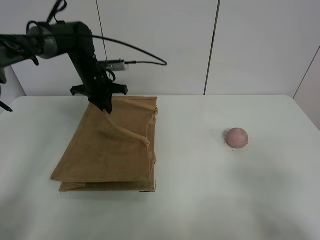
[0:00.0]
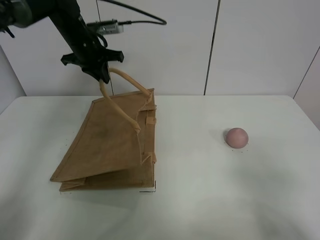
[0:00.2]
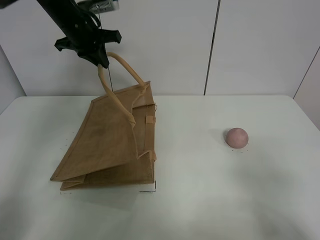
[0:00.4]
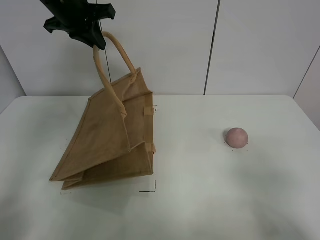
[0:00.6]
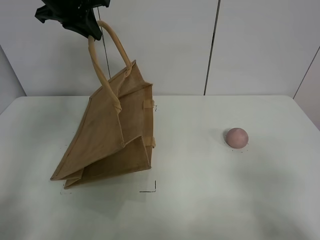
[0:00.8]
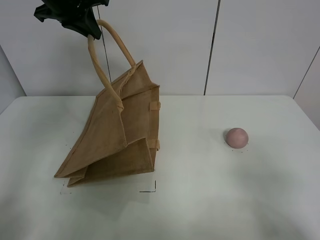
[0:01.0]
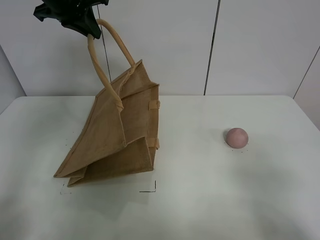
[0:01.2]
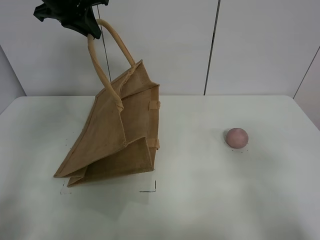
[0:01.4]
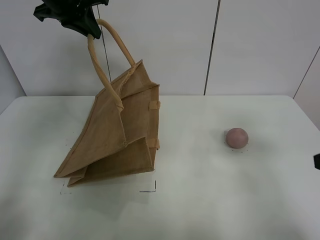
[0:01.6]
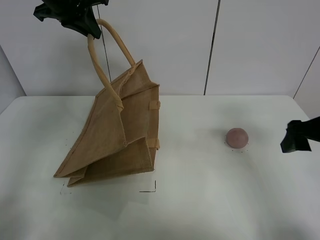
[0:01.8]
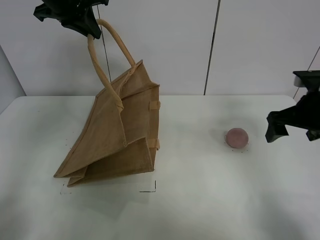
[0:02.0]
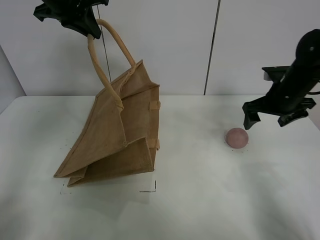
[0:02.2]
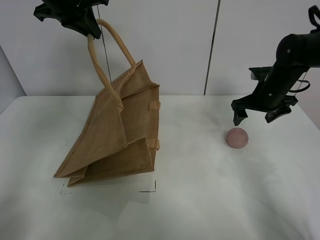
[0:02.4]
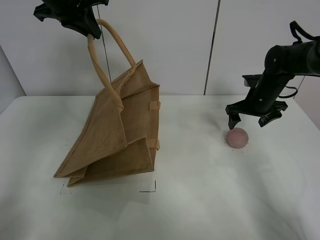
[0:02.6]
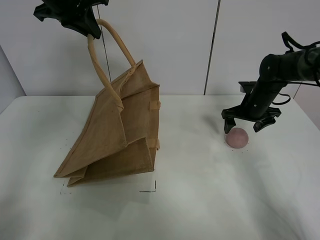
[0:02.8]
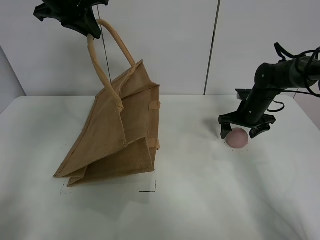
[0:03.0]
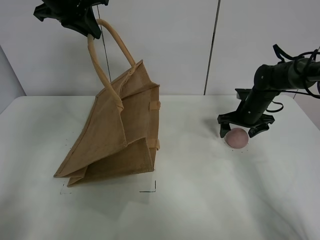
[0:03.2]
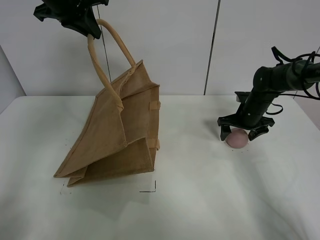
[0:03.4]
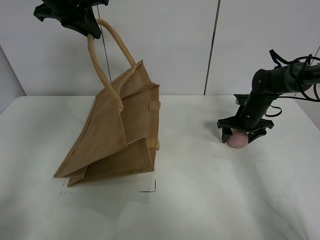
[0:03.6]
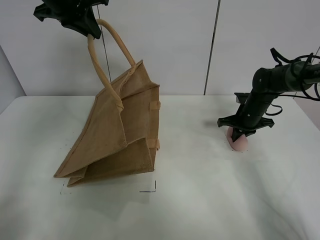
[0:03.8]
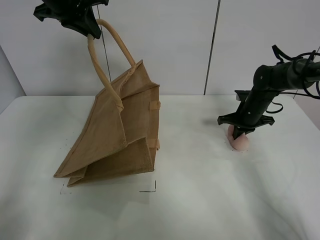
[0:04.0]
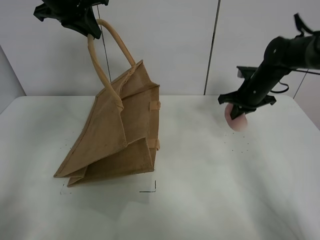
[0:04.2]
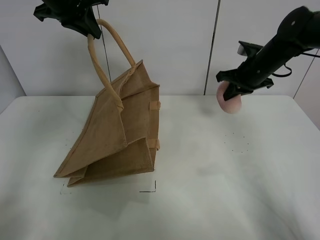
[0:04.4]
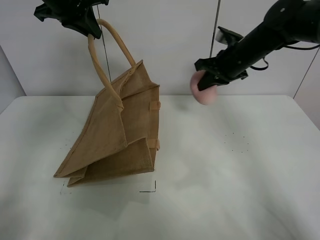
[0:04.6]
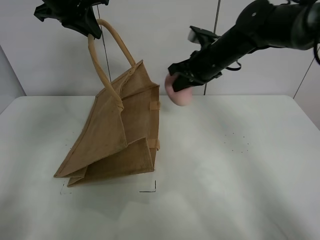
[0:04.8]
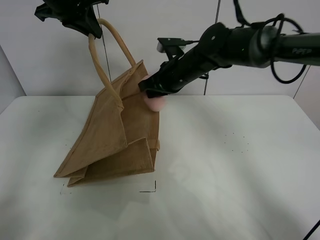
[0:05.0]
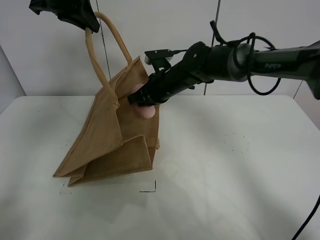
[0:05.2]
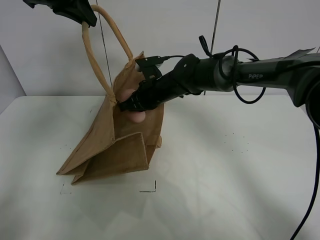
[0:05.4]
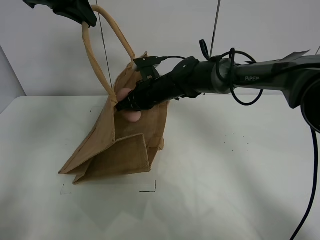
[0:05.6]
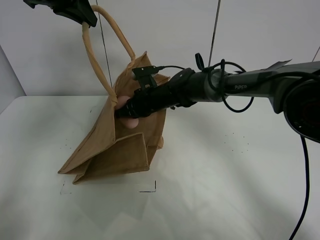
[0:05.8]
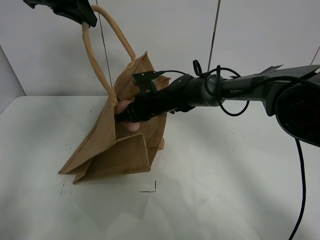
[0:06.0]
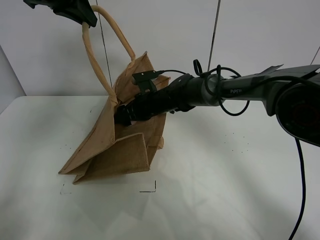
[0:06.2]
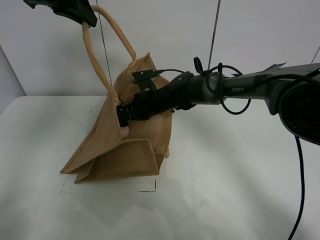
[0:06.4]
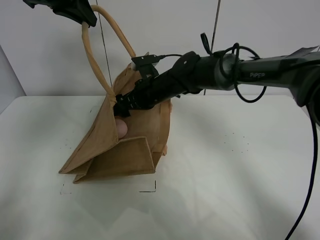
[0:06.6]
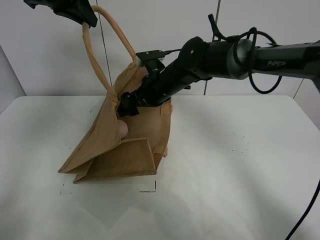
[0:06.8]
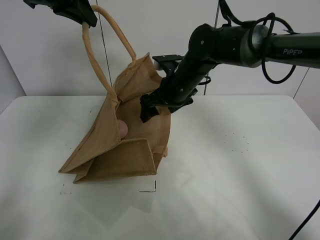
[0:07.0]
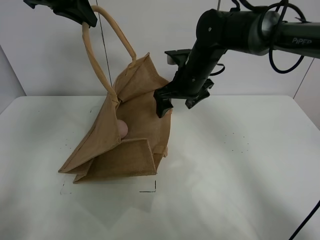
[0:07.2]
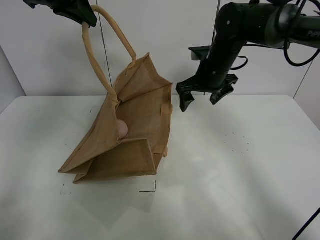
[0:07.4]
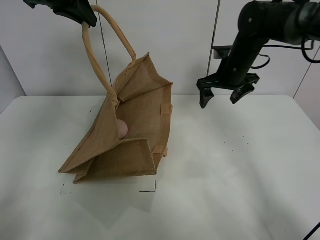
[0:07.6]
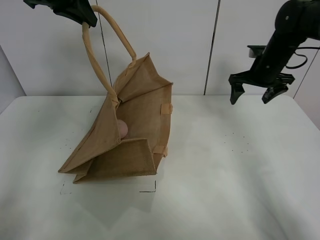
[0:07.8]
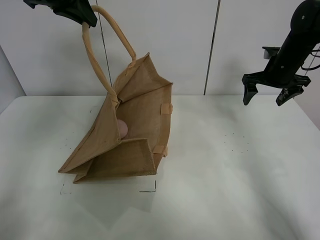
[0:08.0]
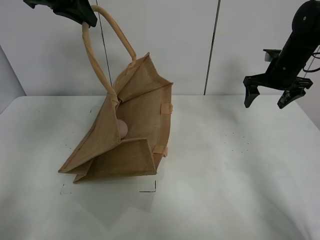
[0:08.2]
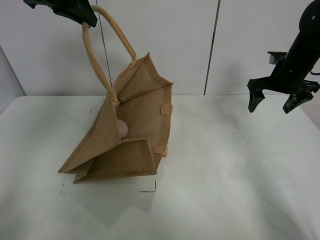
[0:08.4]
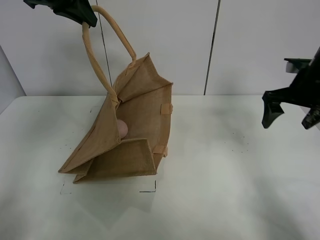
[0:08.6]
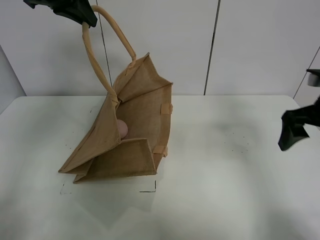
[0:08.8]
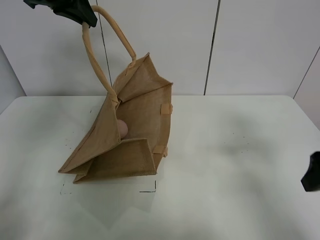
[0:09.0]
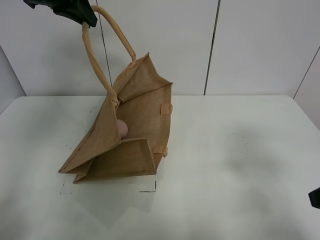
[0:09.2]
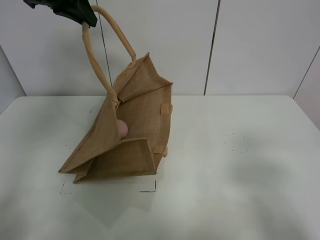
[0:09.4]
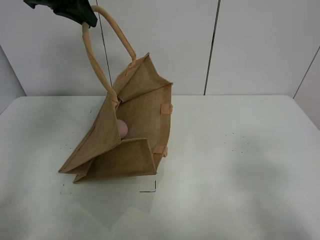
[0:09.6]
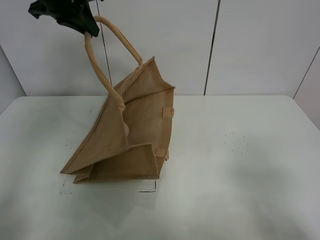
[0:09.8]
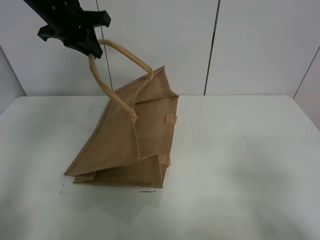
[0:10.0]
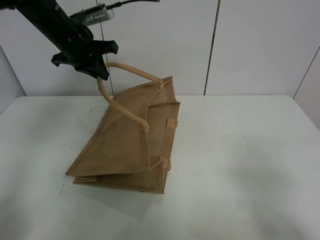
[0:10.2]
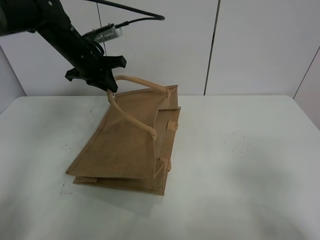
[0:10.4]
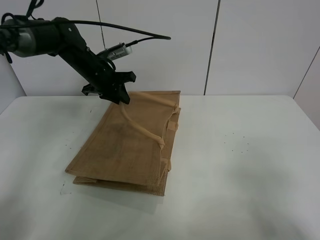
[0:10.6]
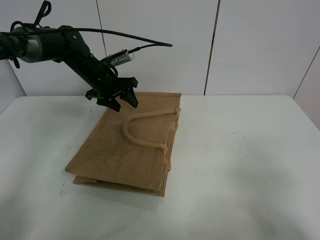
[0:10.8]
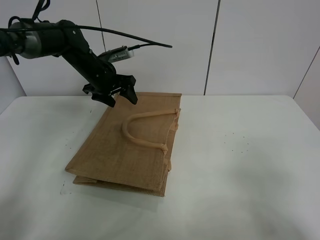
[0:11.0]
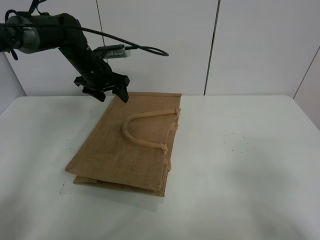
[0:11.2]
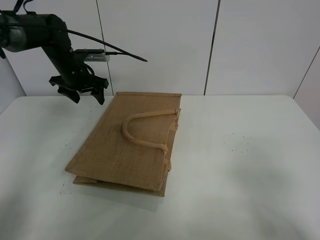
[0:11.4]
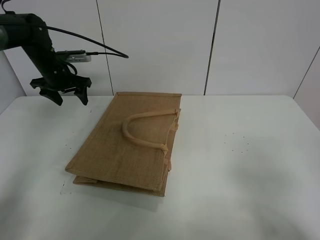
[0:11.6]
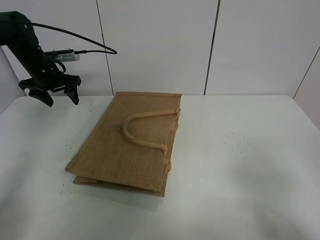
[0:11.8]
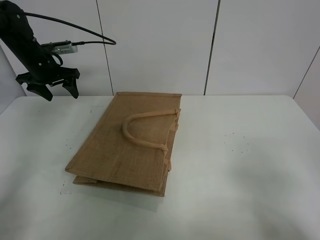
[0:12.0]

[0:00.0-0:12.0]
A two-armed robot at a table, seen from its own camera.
Task of the whole recording: open the brown linen bag and put the peach in the bag.
Step, 0:01.2 to 0:03.6: Grasp the peach with right gripper.
Step, 0:03.8 to 0:07.2: Place the peach in the handbag with right gripper.
Step, 0:07.4 to 0:11.2: Put down the handbag with left grippe.
0:00.0 to 0:01.6: The right gripper moves forward, roughly 15 cm. The left gripper is displaced upward by roughly 20 cm.
0:01.6 to 0:03.0: The right gripper shifts about 35 cm forward and downward.
0:03.0 to 0:04.4: The right gripper goes roughly 15 cm upward, and closes up.
0:04.4 to 0:06.0: The right gripper moves to the left and downward, roughly 25 cm.
0:06.0 to 0:07.6: The right gripper is displaced to the right and upward by some 20 cm, and opens its fingers.
0:07.6 to 0:09.0: The right gripper moves backward, some 30 cm.
0:09.0 to 0:10.4: The left gripper heads downward, covering roughly 15 cm; the right gripper goes approximately 15 cm backward.
0:10.4 to 0:12.0: The left gripper goes about 15 cm to the left, and opens up.

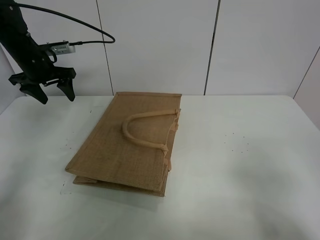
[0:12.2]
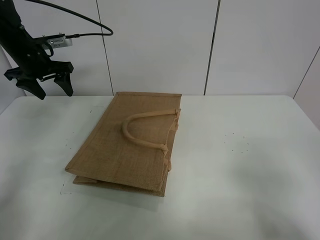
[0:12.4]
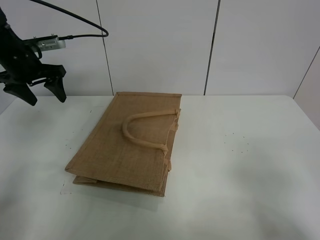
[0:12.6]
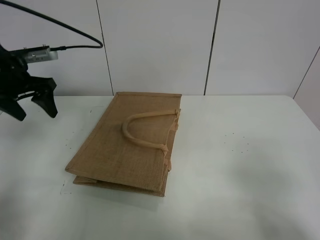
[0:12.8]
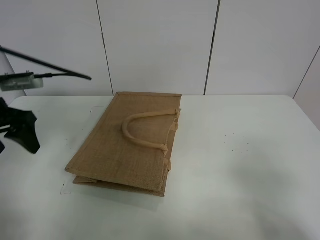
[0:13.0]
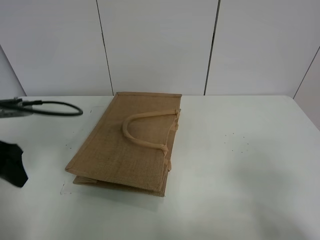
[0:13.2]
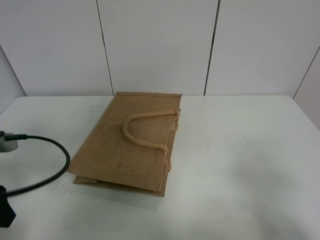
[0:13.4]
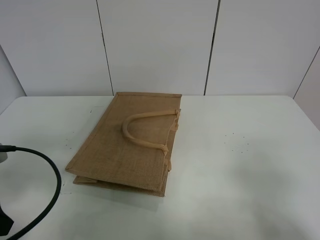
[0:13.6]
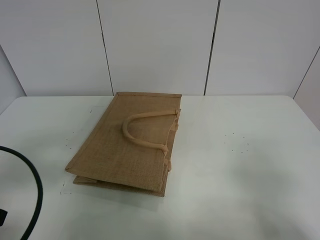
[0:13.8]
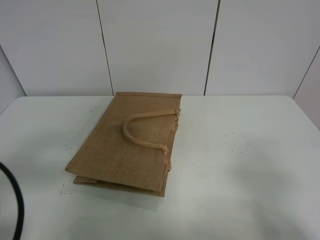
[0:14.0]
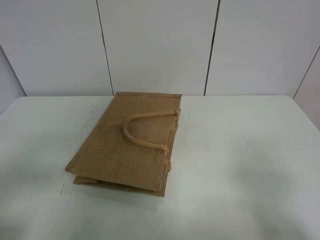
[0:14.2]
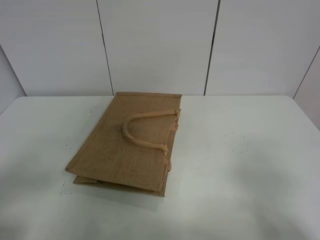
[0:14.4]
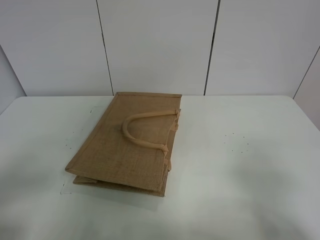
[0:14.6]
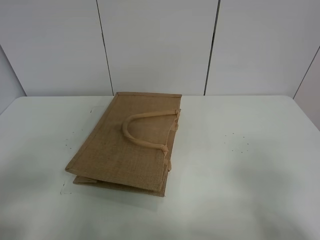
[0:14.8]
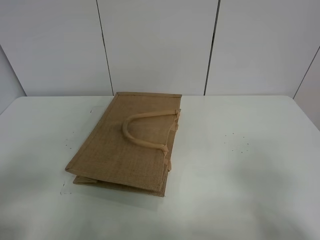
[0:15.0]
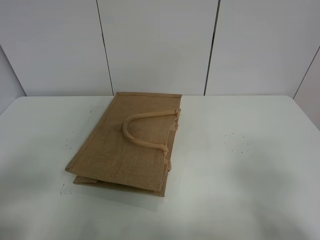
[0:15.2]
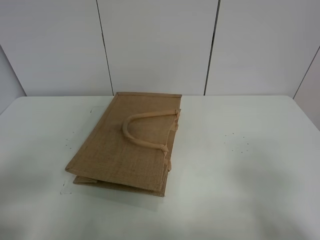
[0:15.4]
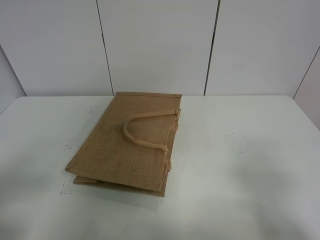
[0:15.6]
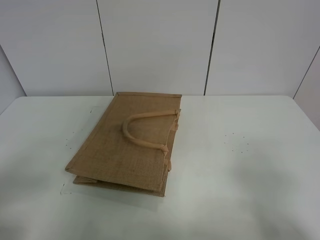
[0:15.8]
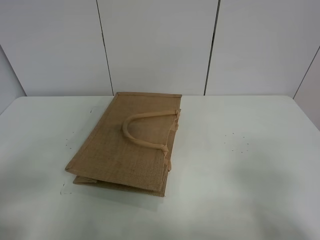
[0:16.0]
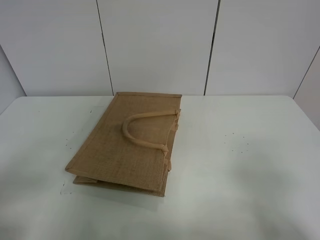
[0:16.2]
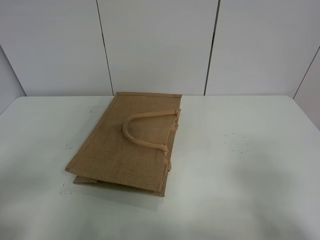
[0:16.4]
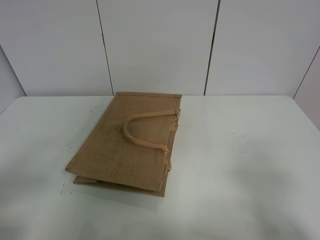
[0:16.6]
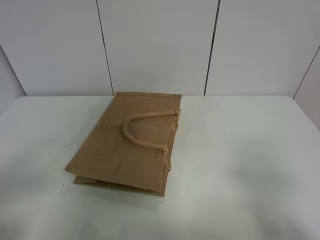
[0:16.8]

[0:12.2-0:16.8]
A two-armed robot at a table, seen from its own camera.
Task of the whole recording: open the brown linen bag and put the peach in the bag.
0:12.2 to 0:13.8: The left gripper moves backward, about 35 cm.
0:13.8 to 0:15.2: The left gripper heads backward, covering roughly 10 cm.
0:15.2 to 0:16.8: The two grippers keep their place.

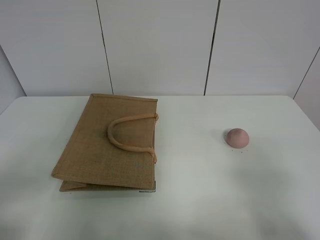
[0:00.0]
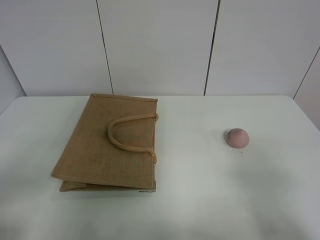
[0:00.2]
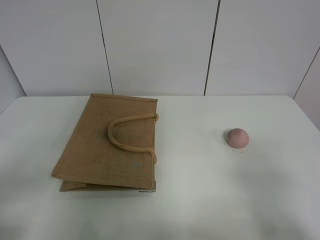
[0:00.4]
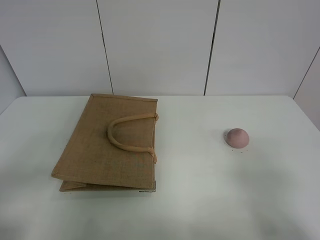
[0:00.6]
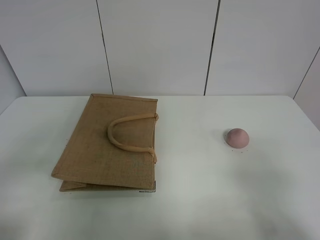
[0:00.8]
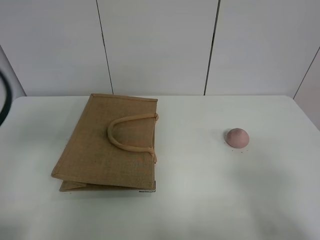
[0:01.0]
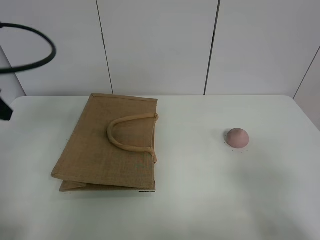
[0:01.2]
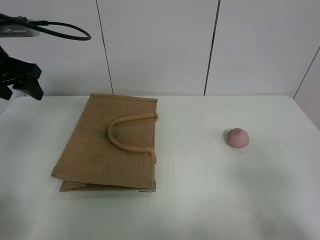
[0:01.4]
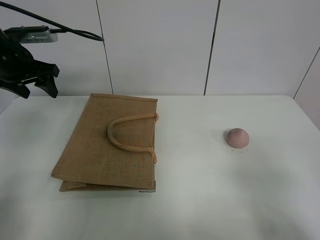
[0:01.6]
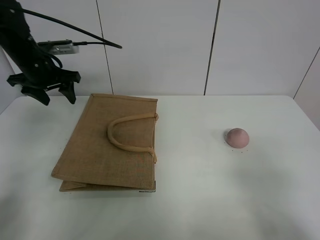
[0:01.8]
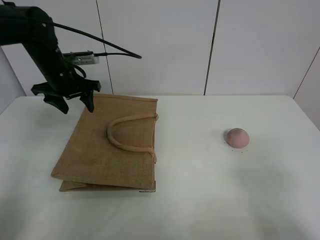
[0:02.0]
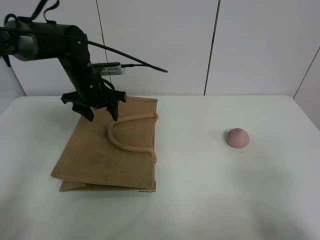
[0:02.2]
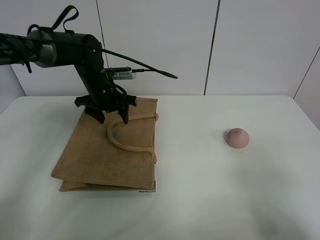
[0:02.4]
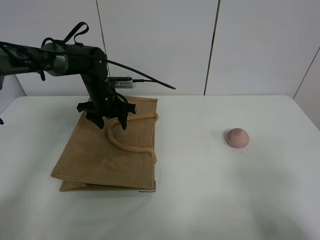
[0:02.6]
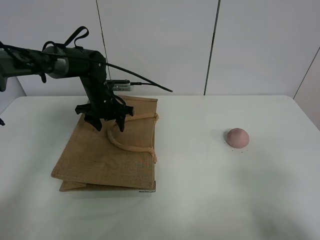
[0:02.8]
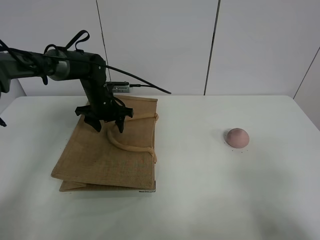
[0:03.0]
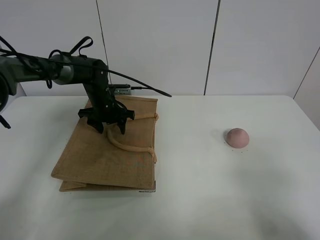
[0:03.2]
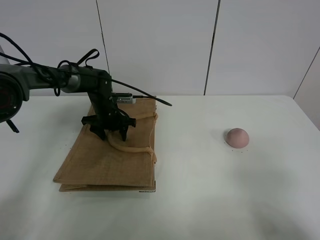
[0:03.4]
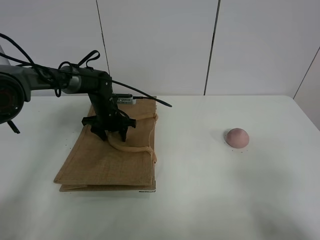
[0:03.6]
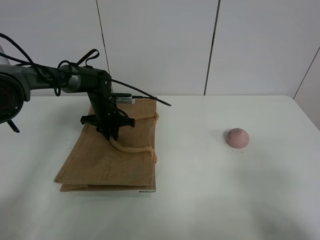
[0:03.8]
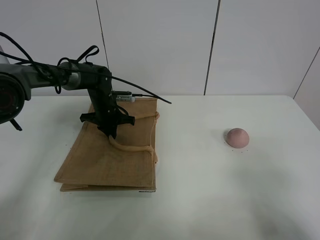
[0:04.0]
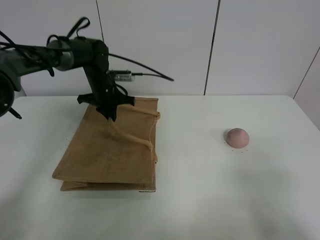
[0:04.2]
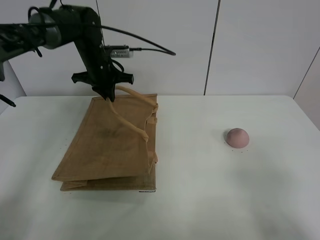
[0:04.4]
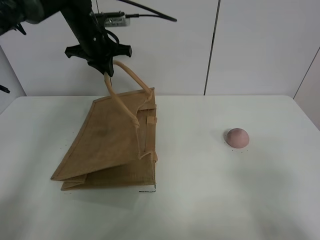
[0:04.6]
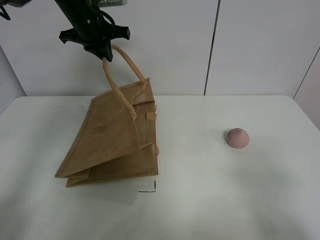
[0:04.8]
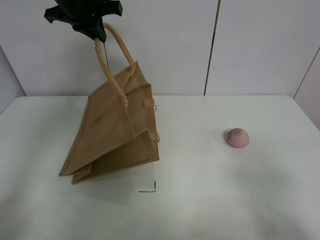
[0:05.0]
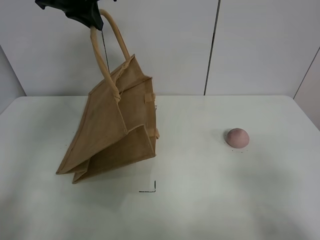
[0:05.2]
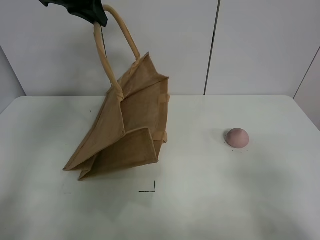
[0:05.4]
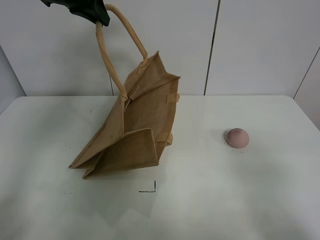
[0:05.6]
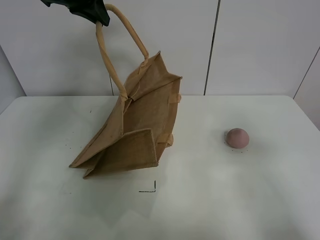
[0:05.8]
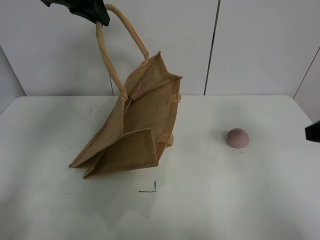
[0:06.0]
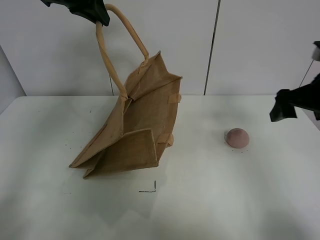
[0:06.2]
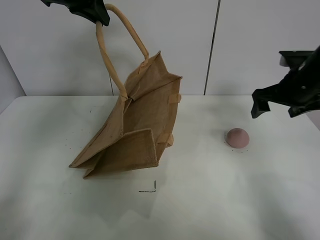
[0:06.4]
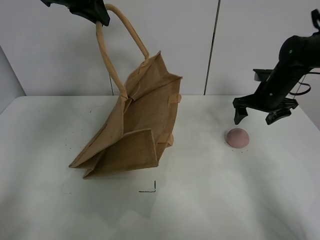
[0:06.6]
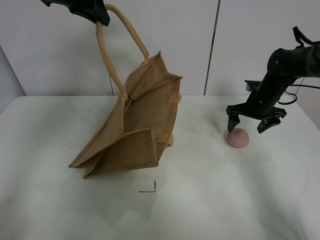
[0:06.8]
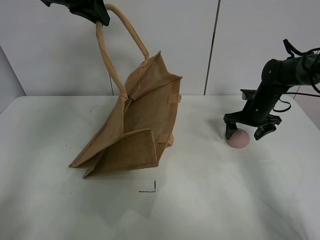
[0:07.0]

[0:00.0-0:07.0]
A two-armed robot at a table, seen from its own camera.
Task of the whole recording: open the brown linen bag and put the peach in the bag.
Step, 0:00.0 to 0:05.0: Lift the handbag with left gripper.
0:00.0 to 0:01.4: The left gripper is displaced forward by about 30 cm.
0:01.4 to 0:02.8: The left gripper heads downward, to the right and forward, covering some 25 cm.
0:02.8 to 0:04.2: The left gripper closes its fingers.
0:04.2 to 0:05.6: The left gripper is displaced upward by some 25 cm.
0:05.6 to 0:07.0: The right gripper shifts about 40 cm forward.
